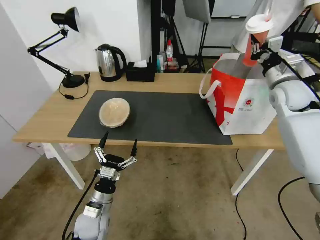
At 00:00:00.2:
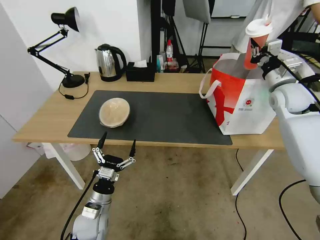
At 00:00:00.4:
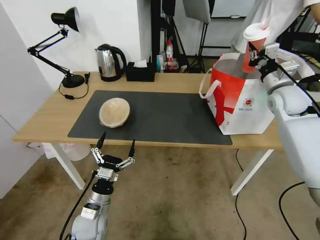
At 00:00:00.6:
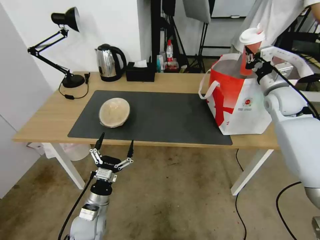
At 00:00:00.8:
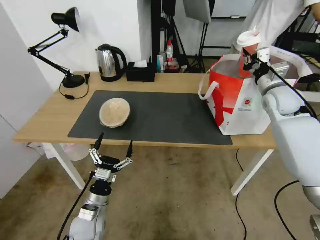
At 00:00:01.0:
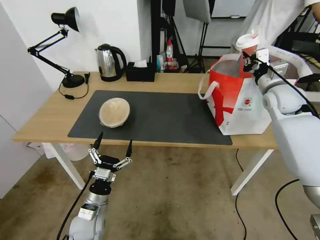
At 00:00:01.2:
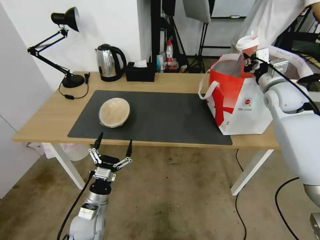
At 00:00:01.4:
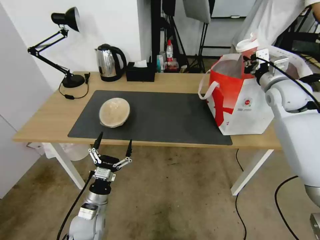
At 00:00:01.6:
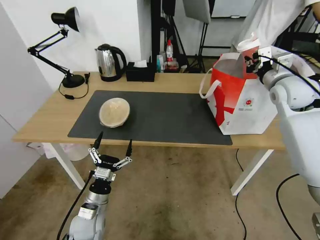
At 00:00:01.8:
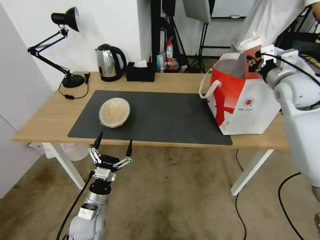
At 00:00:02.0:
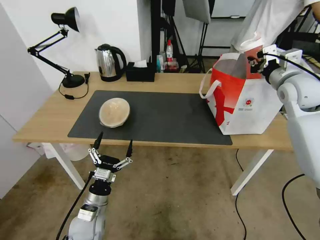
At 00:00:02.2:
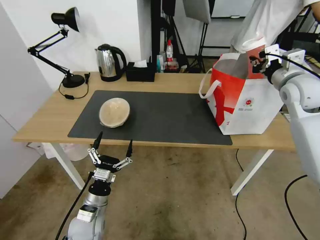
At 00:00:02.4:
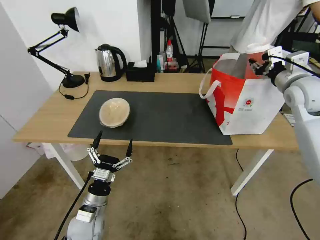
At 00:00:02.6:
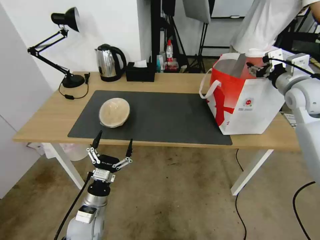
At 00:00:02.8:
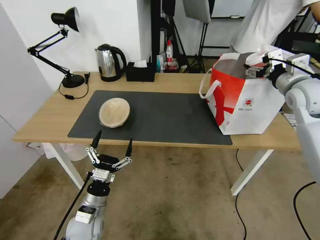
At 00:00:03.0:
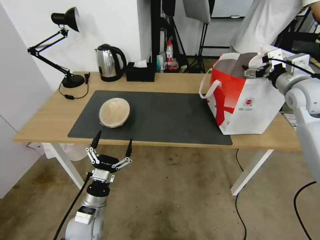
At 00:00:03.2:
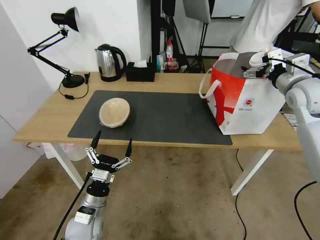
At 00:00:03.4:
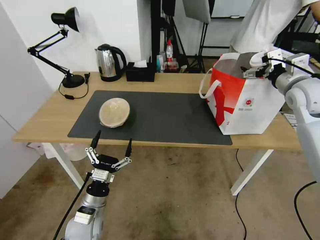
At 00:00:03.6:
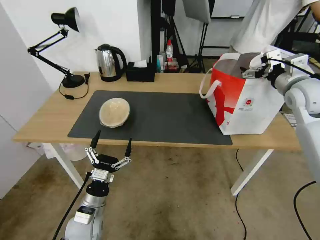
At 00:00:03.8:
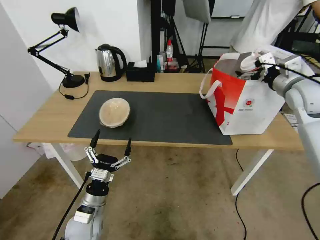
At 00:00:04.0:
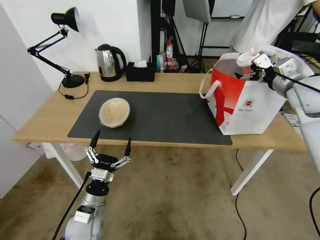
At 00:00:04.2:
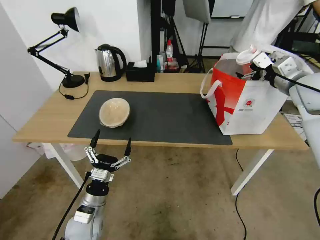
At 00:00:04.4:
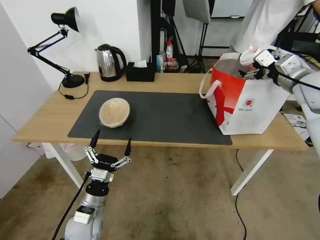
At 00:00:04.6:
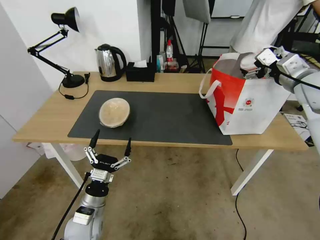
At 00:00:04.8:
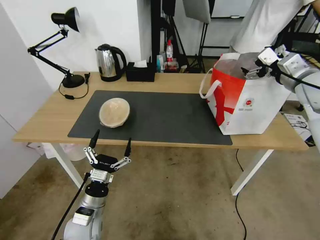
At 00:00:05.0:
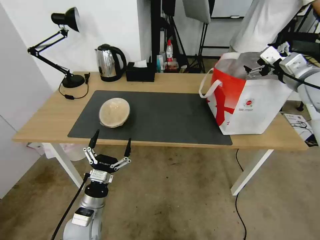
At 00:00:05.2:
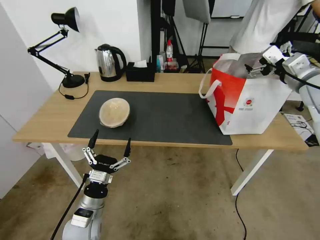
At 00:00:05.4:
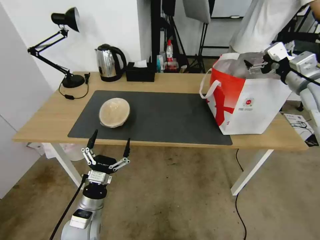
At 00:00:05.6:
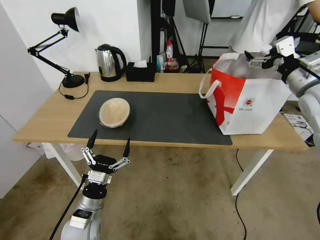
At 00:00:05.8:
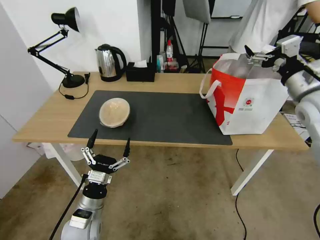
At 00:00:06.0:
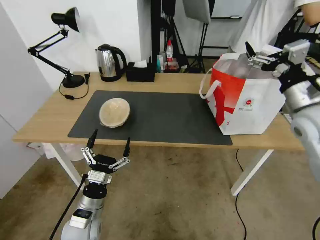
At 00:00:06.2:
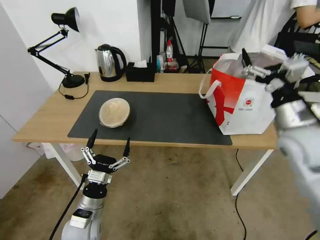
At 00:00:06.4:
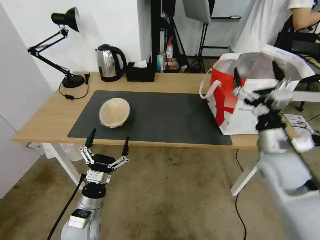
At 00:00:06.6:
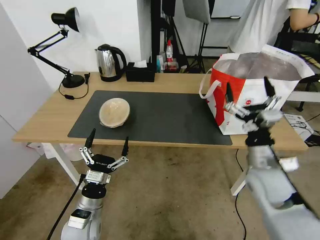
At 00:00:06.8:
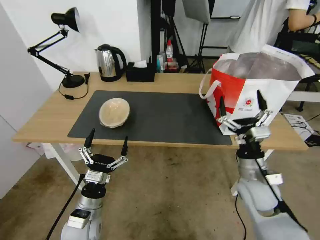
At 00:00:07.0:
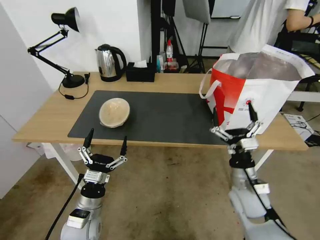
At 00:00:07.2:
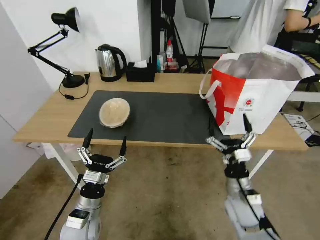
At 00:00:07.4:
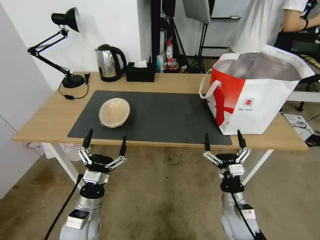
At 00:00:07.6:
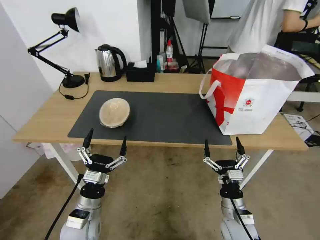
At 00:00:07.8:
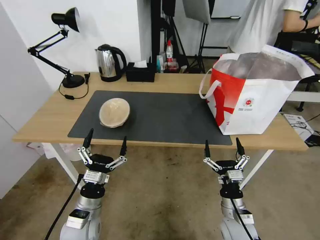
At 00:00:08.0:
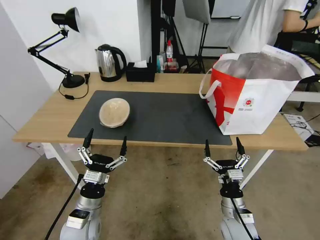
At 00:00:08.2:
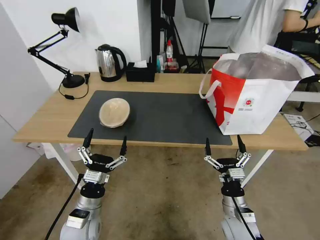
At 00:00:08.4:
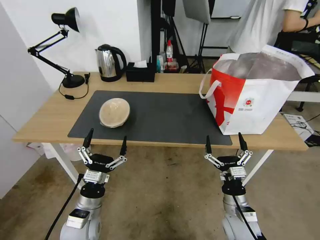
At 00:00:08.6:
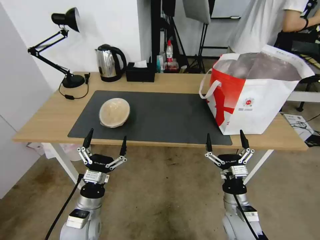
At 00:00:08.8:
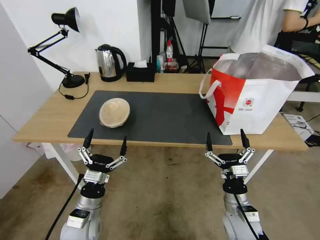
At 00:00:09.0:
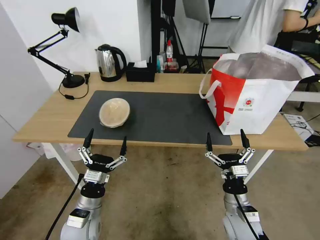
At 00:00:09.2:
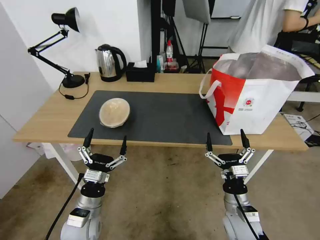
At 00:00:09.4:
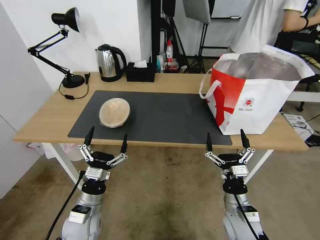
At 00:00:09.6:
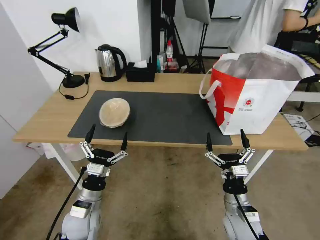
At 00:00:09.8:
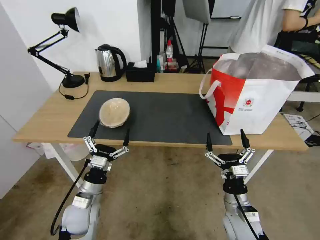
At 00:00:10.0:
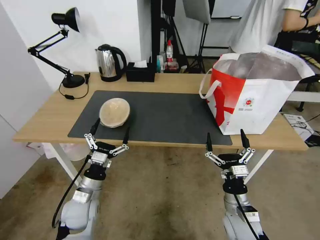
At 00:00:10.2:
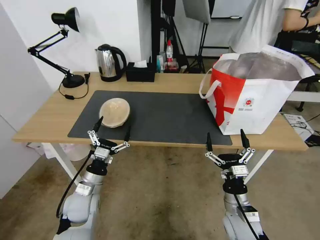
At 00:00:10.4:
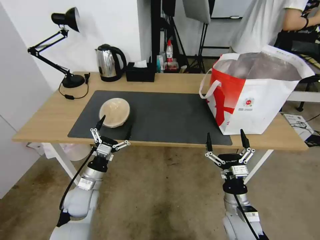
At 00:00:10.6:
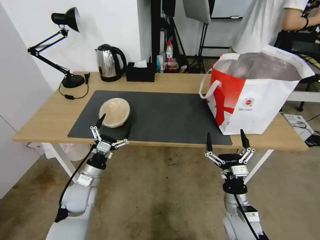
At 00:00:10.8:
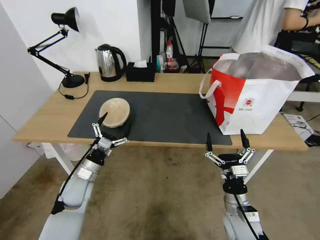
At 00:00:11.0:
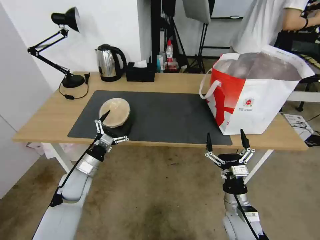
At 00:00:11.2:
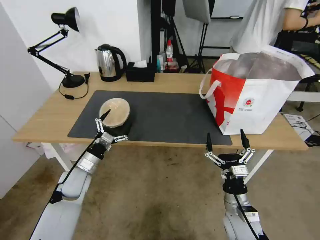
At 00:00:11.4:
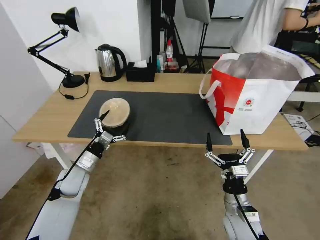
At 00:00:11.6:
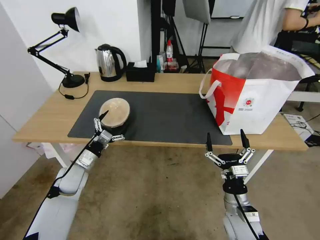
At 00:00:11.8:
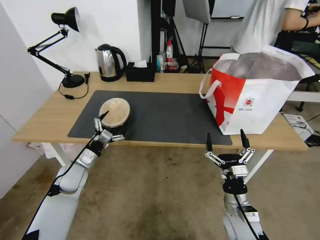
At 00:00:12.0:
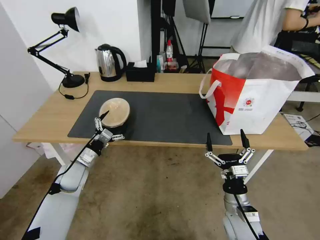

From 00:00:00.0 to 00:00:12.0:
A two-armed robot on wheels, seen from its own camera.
Task of the whole recording: Pick up the trash from the table and place it into the takeout bag.
From 00:00:01.6 to 00:00:03.0: The right gripper opens up.
From 00:00:04.4 to 00:00:06.0: The right gripper heads backward, covering some 10 cm.
From 00:00:06.0 to 00:00:07.6: The right gripper moves downward and backward, approximately 35 cm.
From 00:00:07.6 to 00:00:09.0: The grippers move only a little.
From 00:00:09.0 to 00:00:10.4: The left gripper shifts some 10 cm forward.
From 00:00:10.4 to 00:00:12.0: The left gripper moves forward and to the left, roughly 10 cm.

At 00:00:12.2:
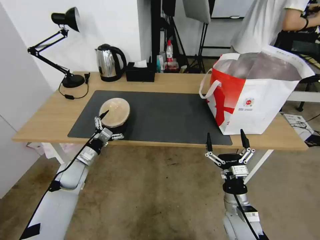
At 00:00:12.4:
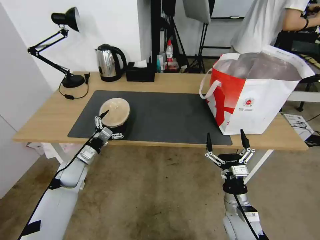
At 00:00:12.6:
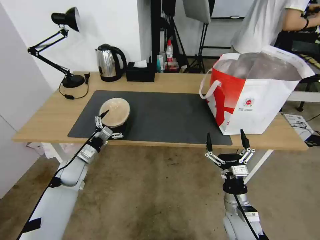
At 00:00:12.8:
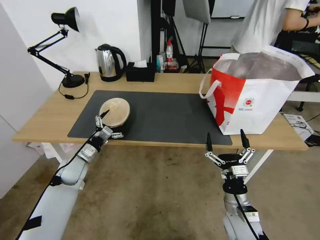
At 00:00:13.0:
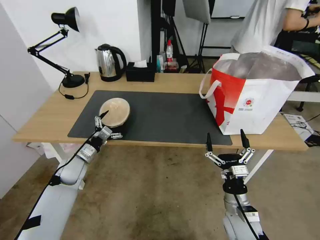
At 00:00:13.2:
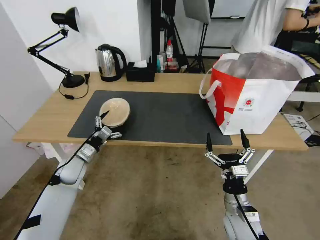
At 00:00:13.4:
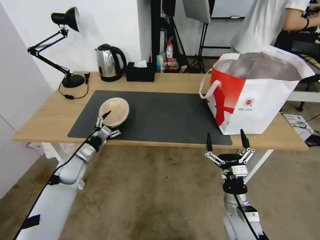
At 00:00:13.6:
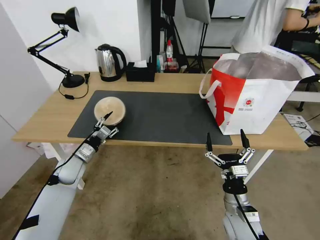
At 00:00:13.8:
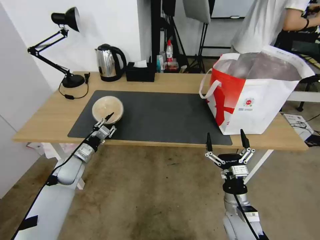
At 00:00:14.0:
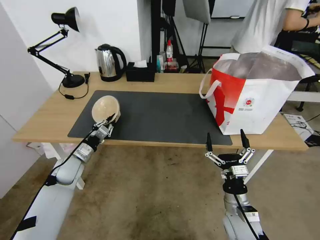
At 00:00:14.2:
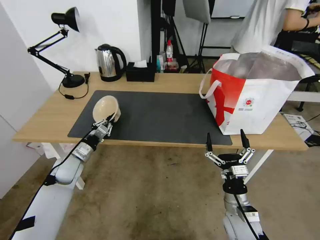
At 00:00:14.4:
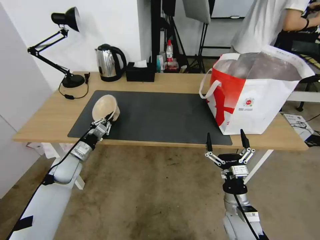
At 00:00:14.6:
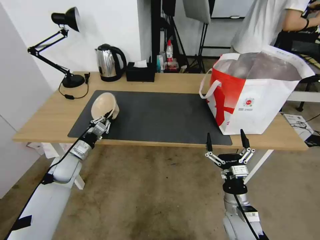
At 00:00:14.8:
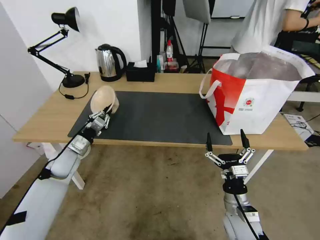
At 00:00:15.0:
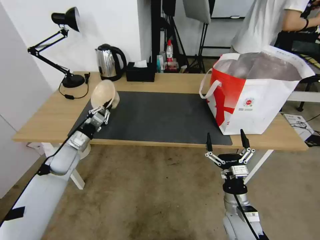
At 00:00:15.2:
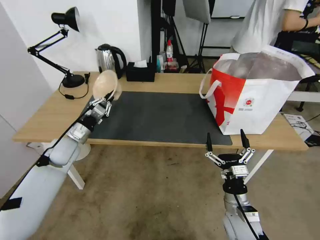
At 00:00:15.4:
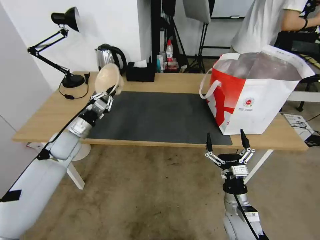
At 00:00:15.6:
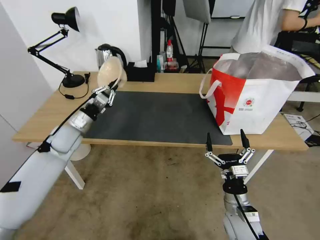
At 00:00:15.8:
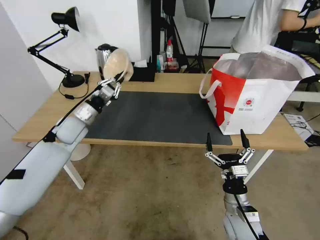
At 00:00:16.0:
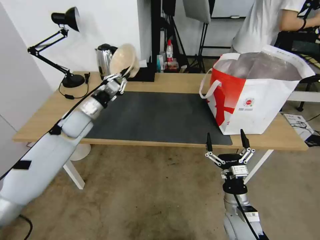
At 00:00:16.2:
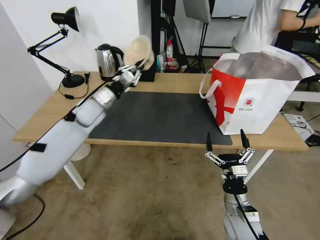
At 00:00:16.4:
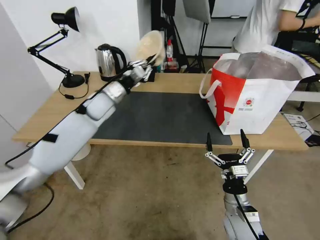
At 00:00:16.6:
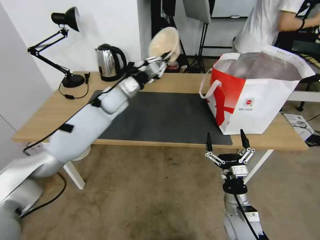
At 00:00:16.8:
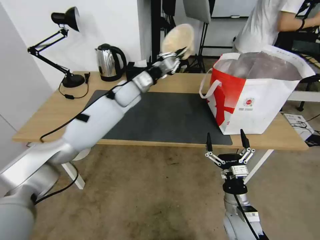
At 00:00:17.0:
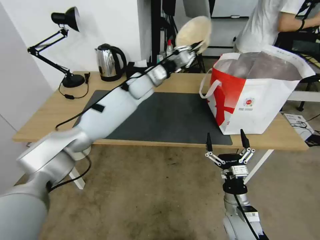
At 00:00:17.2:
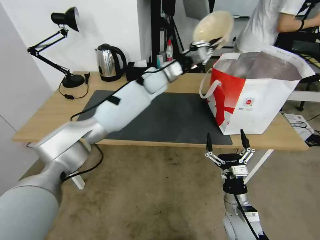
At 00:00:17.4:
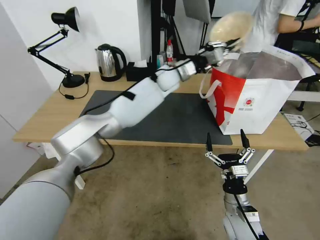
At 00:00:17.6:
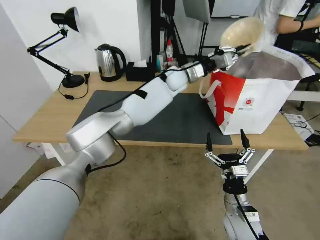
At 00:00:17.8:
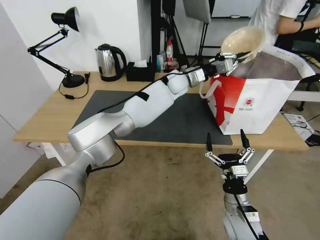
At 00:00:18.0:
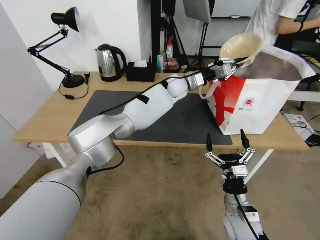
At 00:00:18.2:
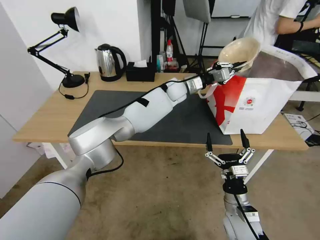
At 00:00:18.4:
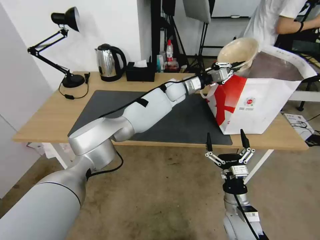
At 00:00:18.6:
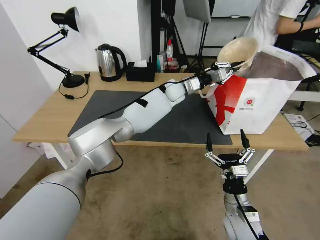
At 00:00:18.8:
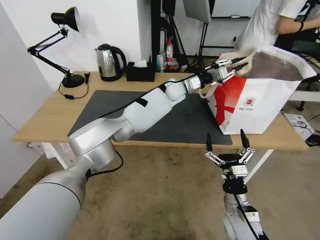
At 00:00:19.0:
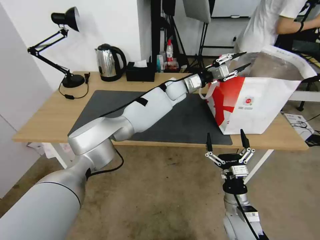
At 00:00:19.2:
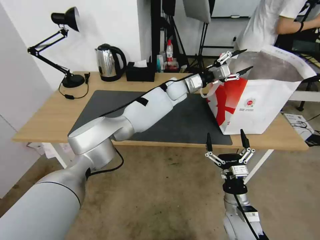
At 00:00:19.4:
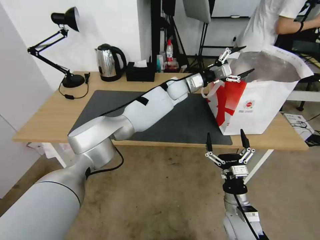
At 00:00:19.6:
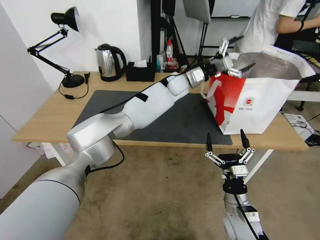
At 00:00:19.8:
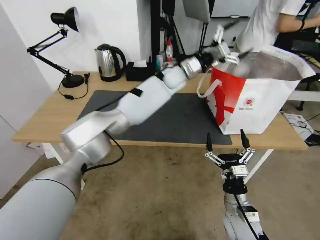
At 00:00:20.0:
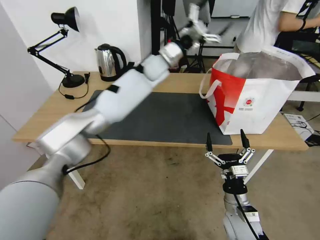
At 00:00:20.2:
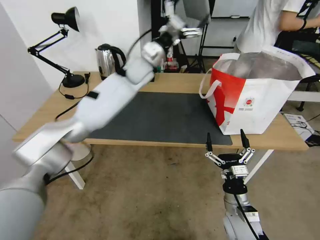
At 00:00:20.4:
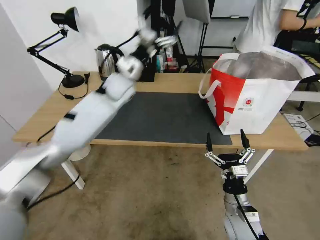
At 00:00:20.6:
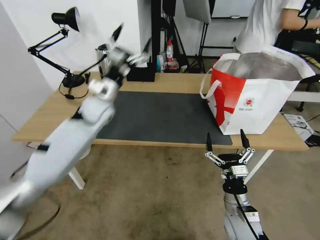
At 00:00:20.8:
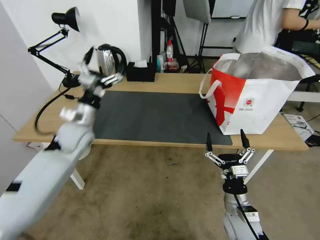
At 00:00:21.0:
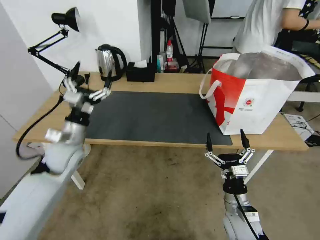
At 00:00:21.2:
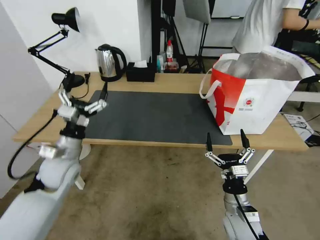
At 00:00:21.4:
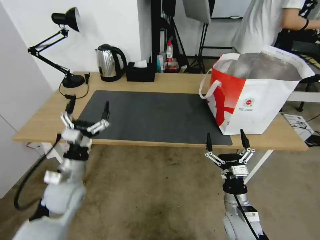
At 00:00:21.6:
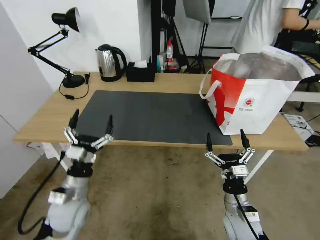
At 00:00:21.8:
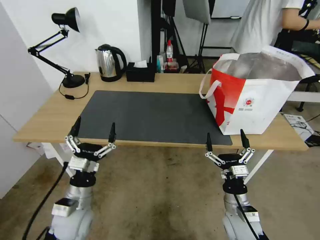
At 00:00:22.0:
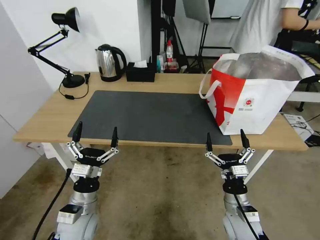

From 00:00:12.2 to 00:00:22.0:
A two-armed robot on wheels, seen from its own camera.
Task of the whole recording: Pick up the trash from the table and place it into the takeout bag.
From 00:00:12.2 to 00:00:13.6: The left gripper closes up.
From 00:00:13.6 to 00:00:15.0: The left gripper shifts some 5 cm upward, and closes up.
From 00:00:15.0 to 00:00:16.4: The left gripper moves forward, upward and to the right, roughly 25 cm.
From 00:00:16.4 to 00:00:17.8: The left gripper moves to the right, roughly 30 cm.
From 00:00:17.8 to 00:00:19.2: The left gripper opens its fingers.
From 00:00:19.2 to 00:00:20.6: The left gripper heads to the left and backward, covering approximately 30 cm, and opens.
From 00:00:20.6 to 00:00:22.0: The left gripper heads backward and downward, covering approximately 35 cm.
